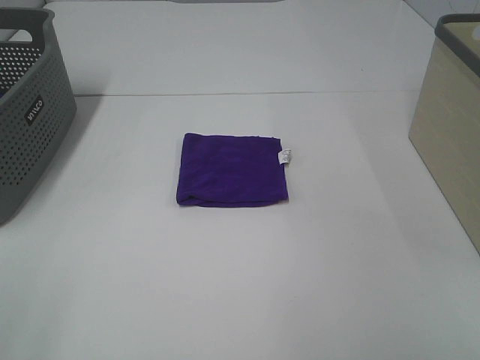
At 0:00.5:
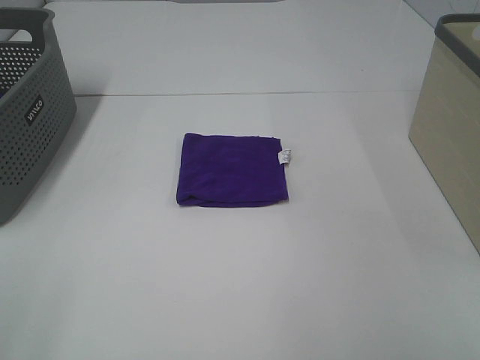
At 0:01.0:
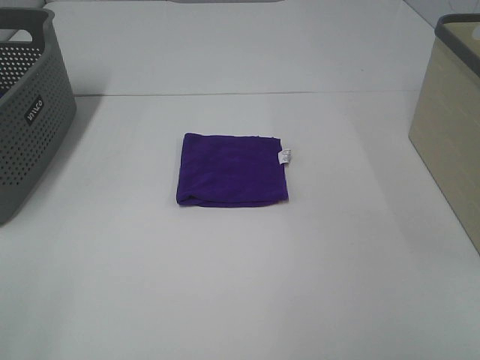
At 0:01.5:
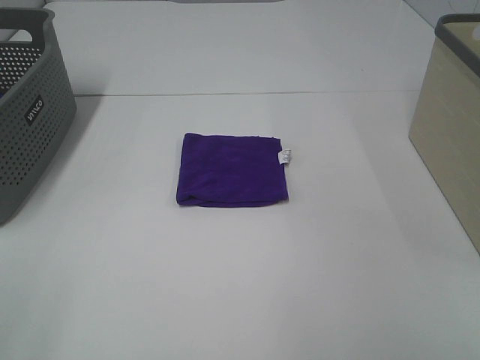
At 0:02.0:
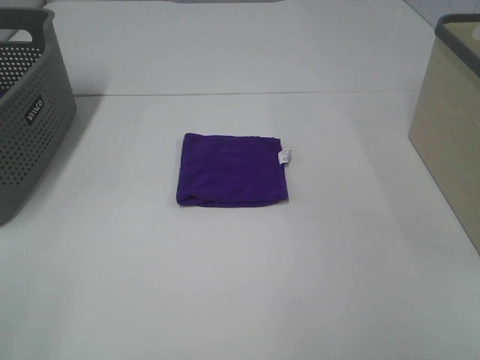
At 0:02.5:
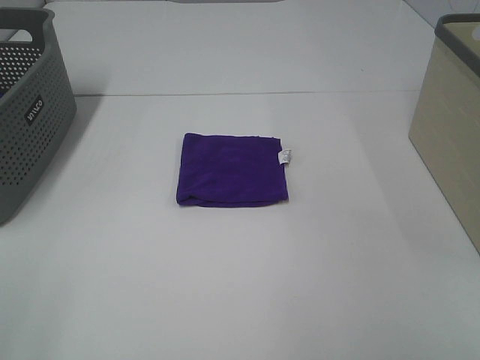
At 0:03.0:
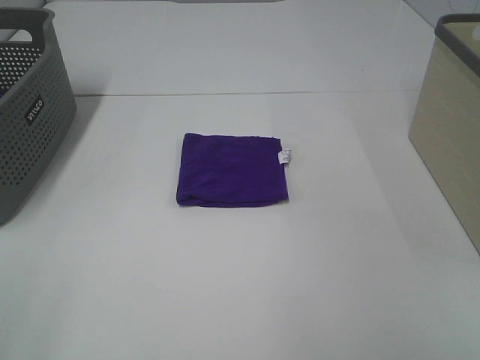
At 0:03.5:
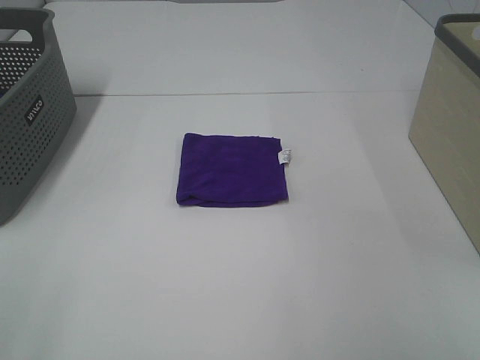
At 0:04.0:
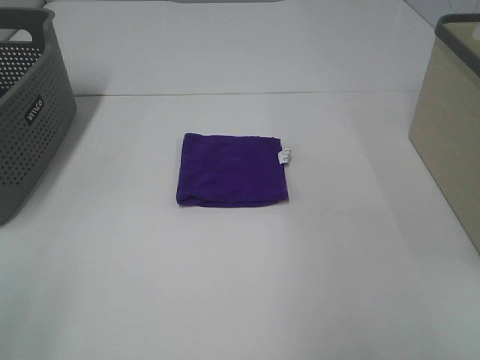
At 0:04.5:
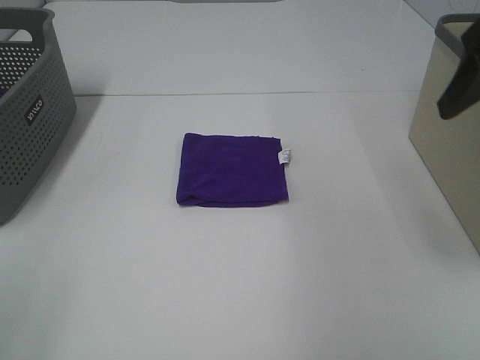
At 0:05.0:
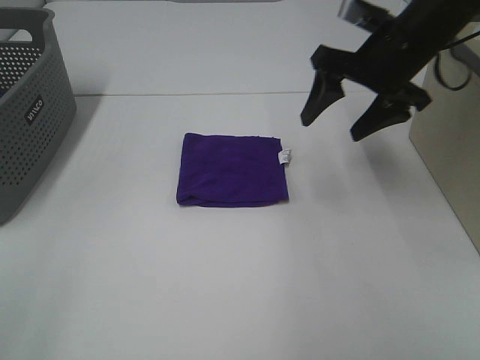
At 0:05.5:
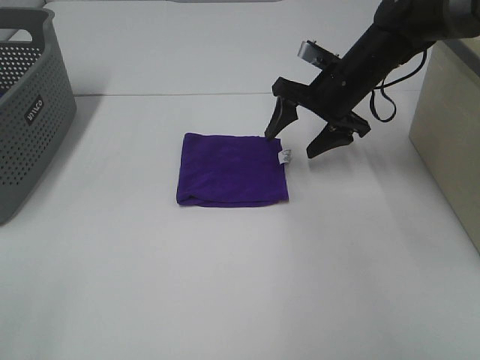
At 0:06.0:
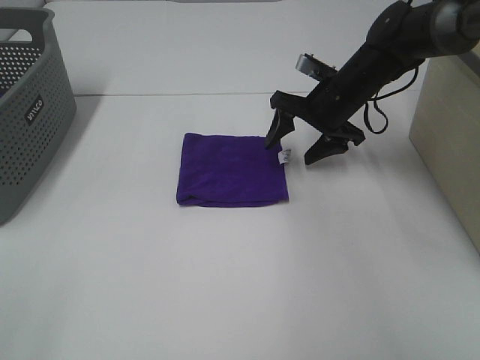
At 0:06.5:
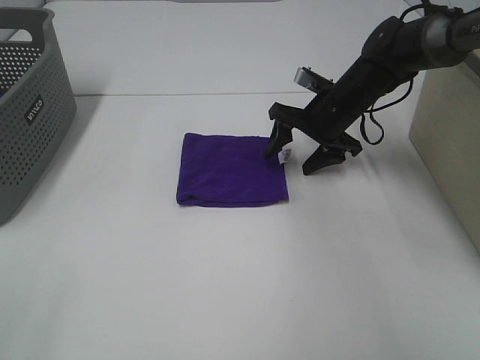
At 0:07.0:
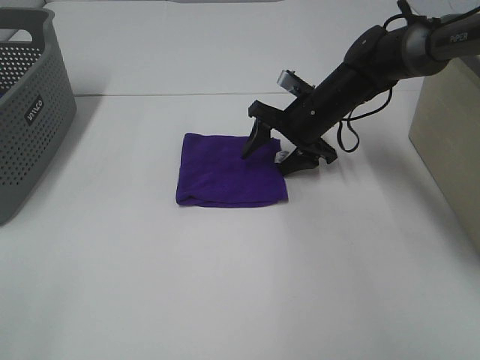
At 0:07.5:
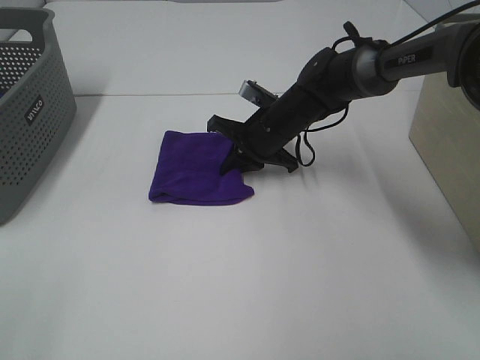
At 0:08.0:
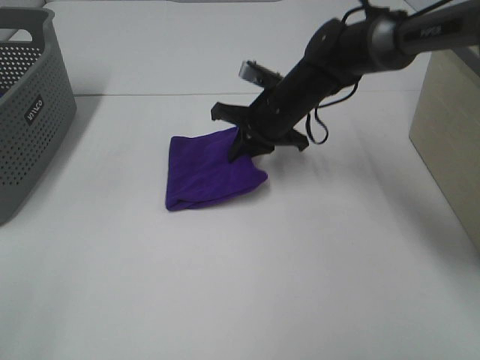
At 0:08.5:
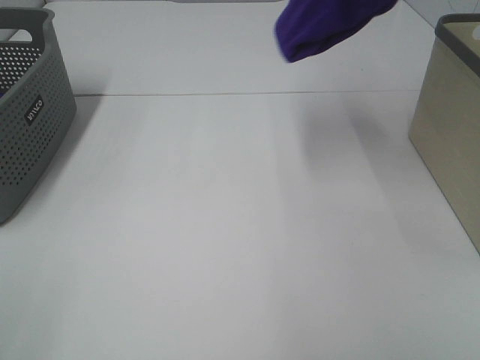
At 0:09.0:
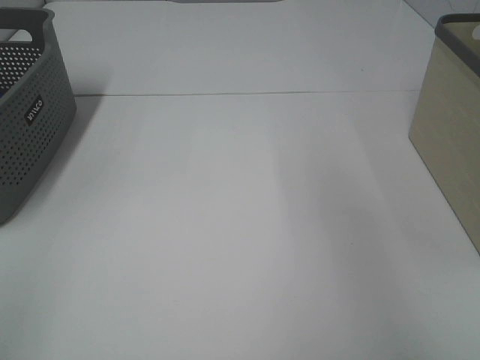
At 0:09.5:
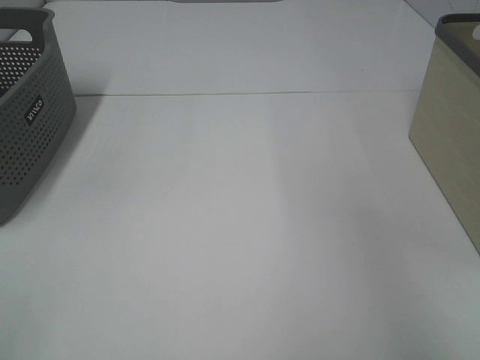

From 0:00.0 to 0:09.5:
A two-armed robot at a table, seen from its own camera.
Step, from 0:00.0 to 0:07.5: Right hand: grab the folded purple towel.
From 0:00.0 to 0:02.0: Both grippers stay put.
From 0:04.0 to 0:05.5: The right gripper shifts about 40 cm forward, downward and to the left.
From 0:05.5 to 0:07.5: The right gripper is displaced to the left and downward by roughly 10 cm, and closes its fingers.
From 0:07.5 to 0:09.5: The right gripper goes roughly 50 cm to the right and upward.

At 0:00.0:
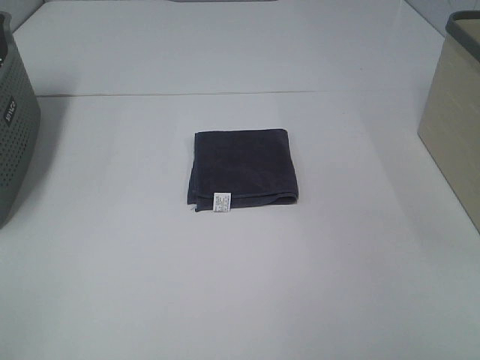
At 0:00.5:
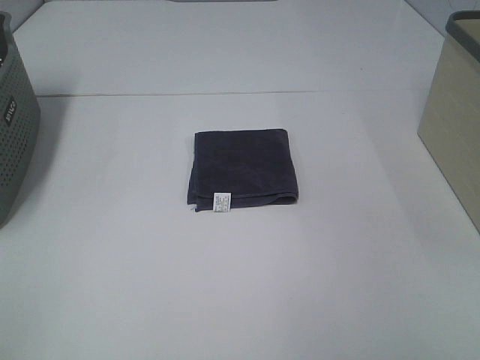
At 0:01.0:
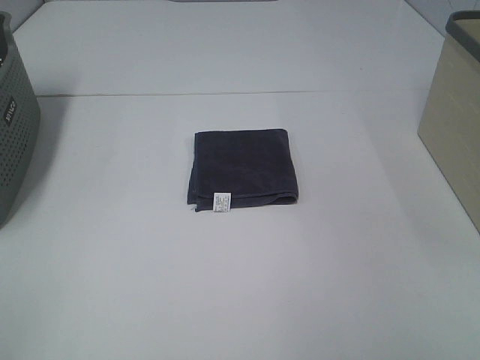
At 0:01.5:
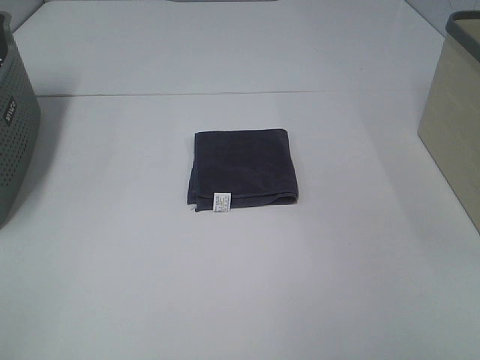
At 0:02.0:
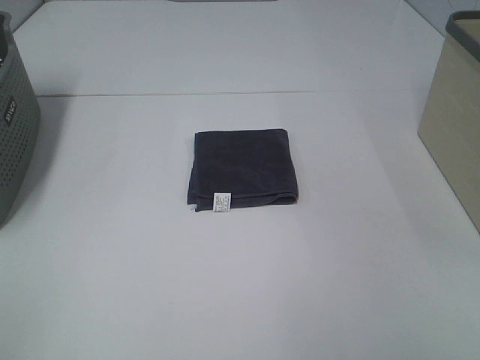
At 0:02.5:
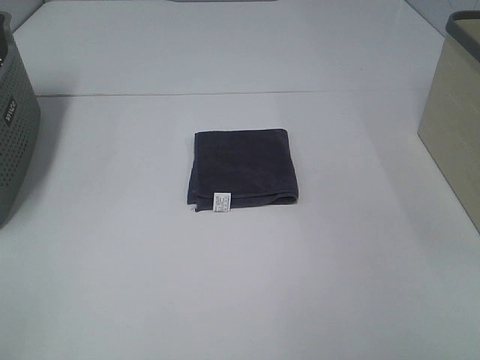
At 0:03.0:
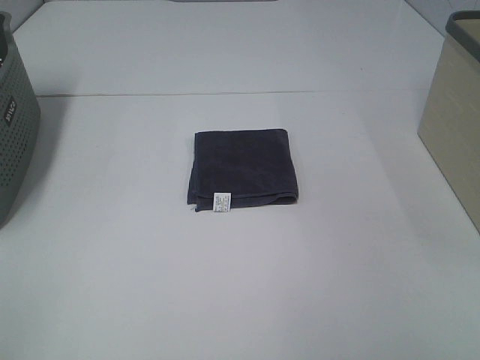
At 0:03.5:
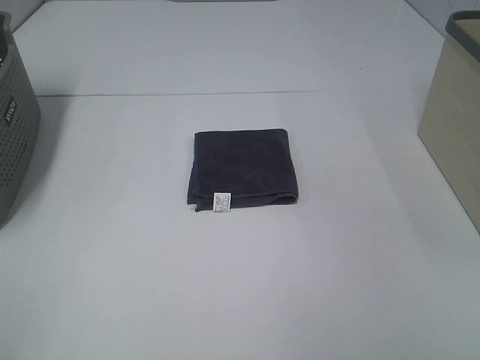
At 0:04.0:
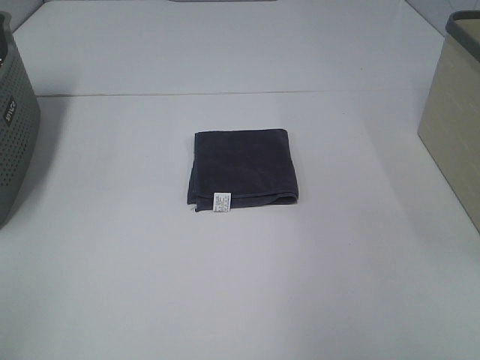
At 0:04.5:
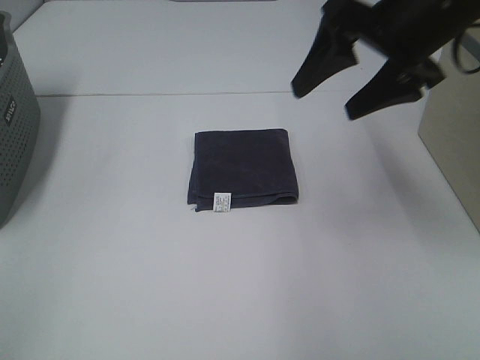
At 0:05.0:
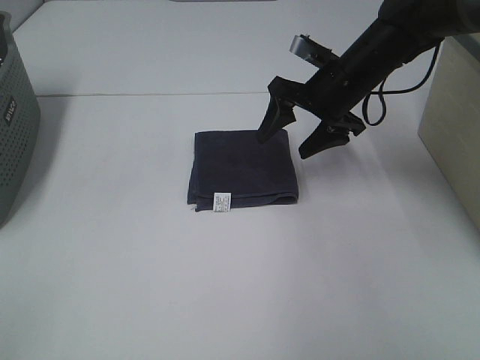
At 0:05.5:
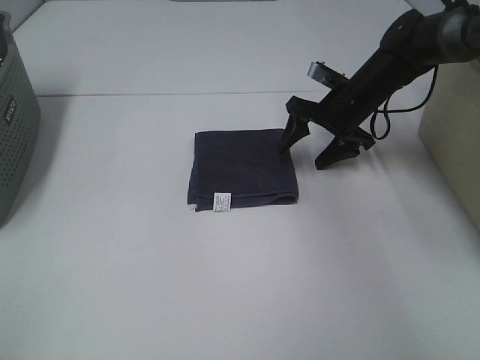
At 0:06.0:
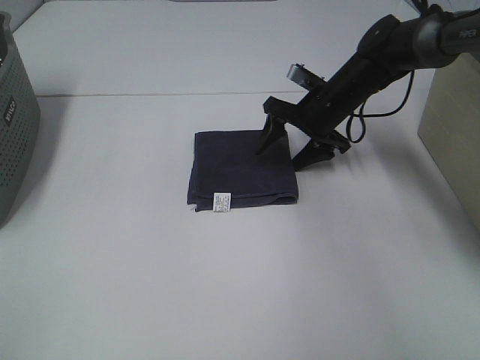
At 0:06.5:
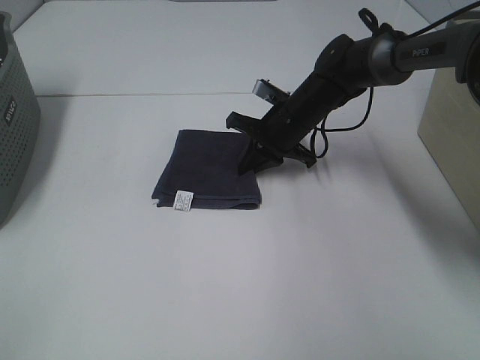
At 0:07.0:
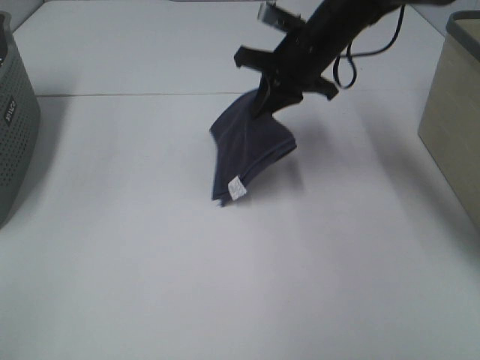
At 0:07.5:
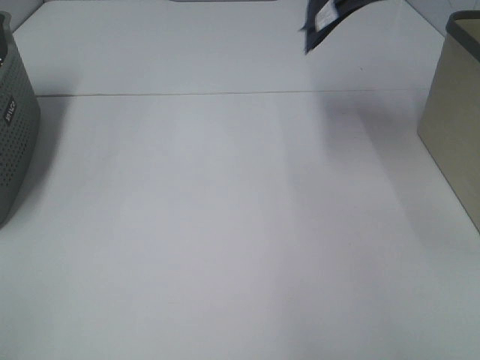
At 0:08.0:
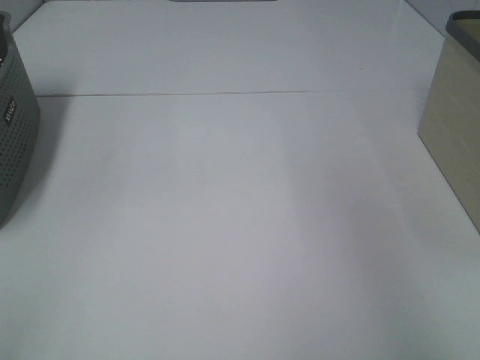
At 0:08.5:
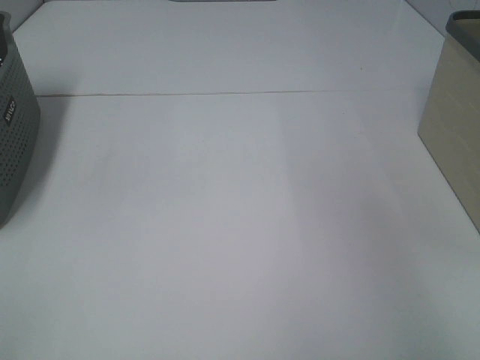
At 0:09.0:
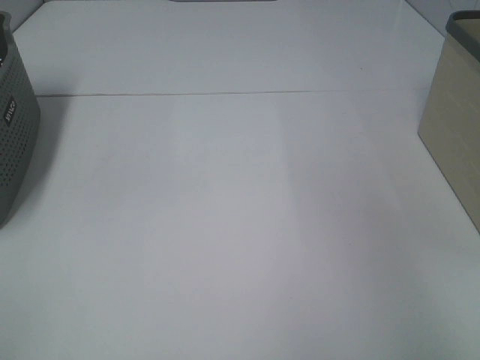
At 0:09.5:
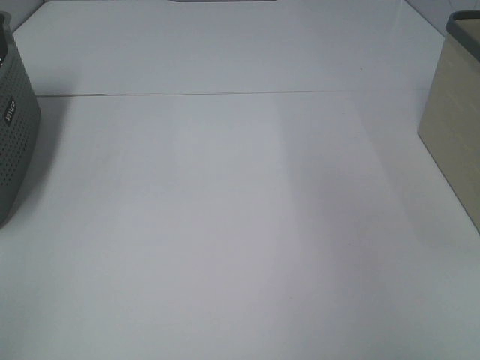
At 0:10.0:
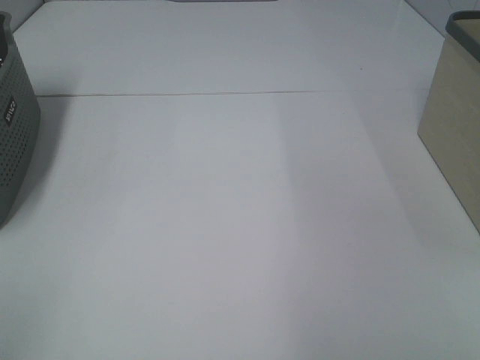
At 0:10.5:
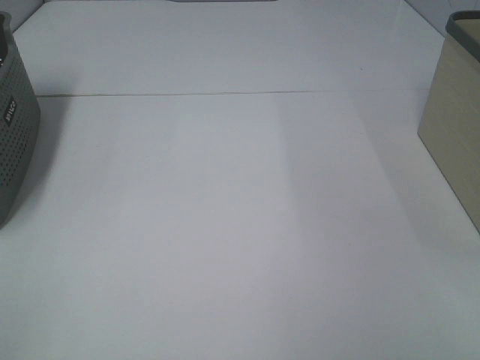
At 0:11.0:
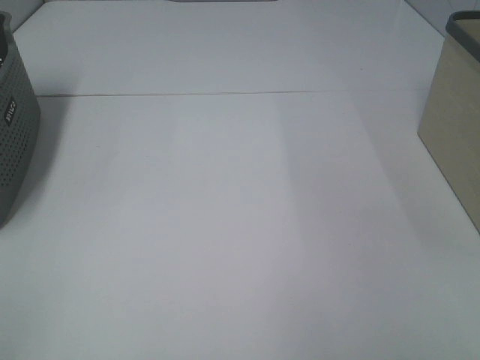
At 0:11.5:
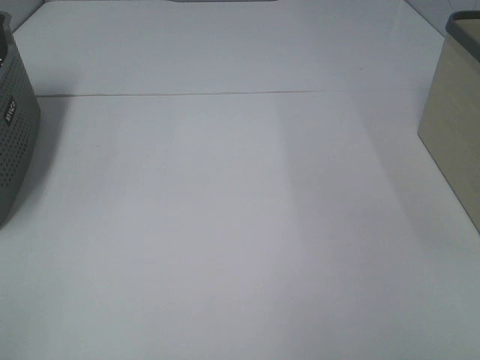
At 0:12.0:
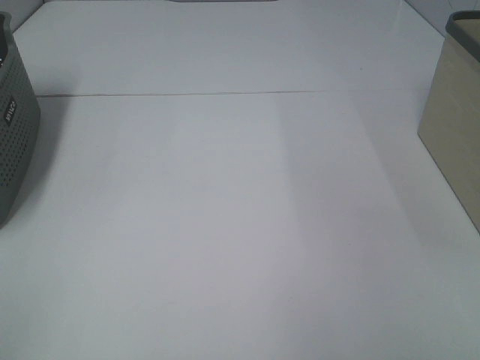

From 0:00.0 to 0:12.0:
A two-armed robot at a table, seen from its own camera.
Step, from 0:00.0 to 0:06.5: Right hand: grab the folded grey towel.
Step, from 0:07.0 to 0:08.5: Right hand: place the grey towel in right basket.
From 0:00.0 to 0:02.0: Neither gripper changes place.
From 0:04.0 to 0:06.0: The right gripper shifts approximately 50 cm forward, downward and to the left.
From 0:06.0 to 0:08.0: The right gripper moves upward and to the right, roughly 40 cm, and closes.

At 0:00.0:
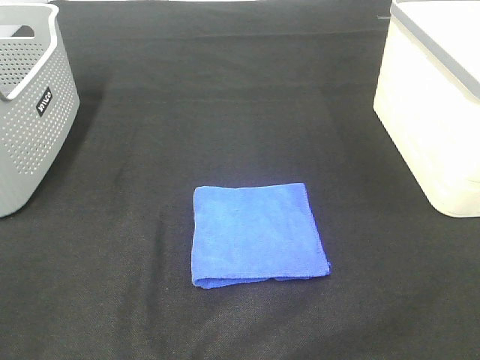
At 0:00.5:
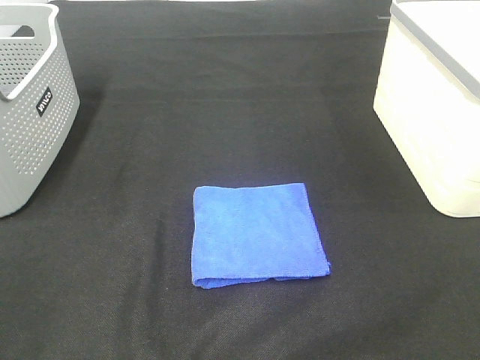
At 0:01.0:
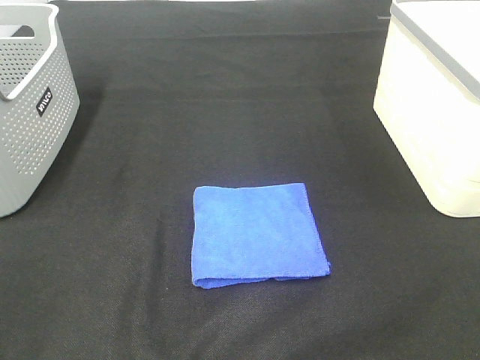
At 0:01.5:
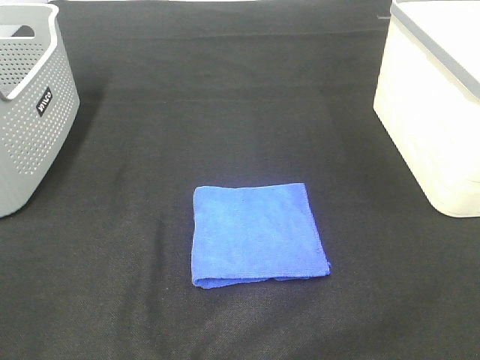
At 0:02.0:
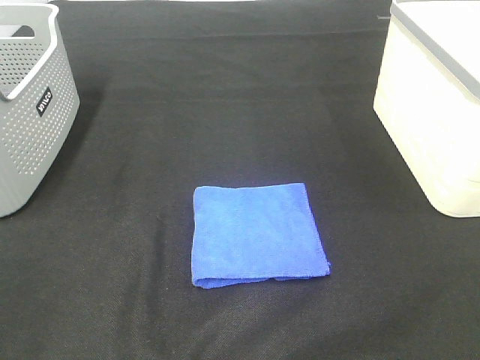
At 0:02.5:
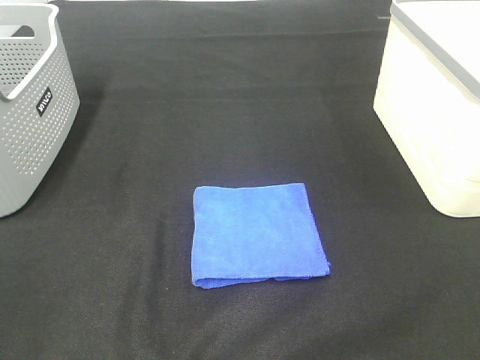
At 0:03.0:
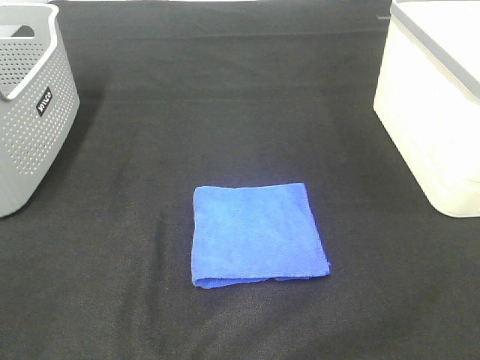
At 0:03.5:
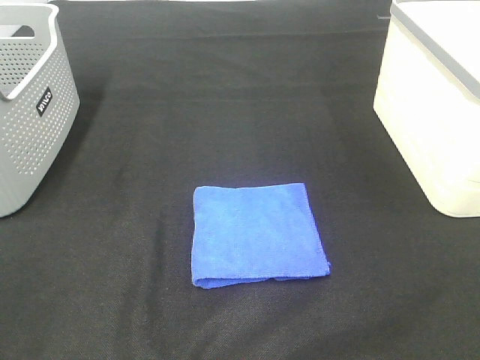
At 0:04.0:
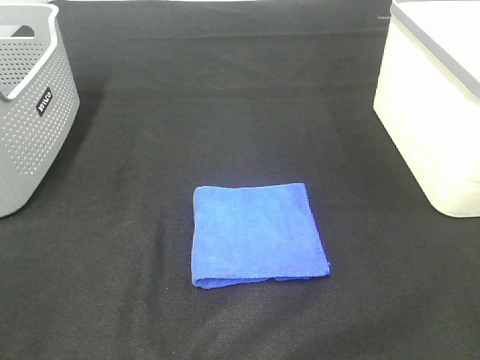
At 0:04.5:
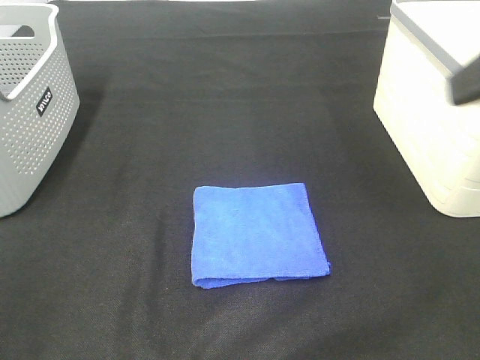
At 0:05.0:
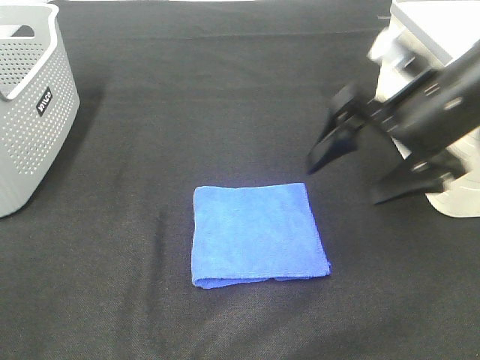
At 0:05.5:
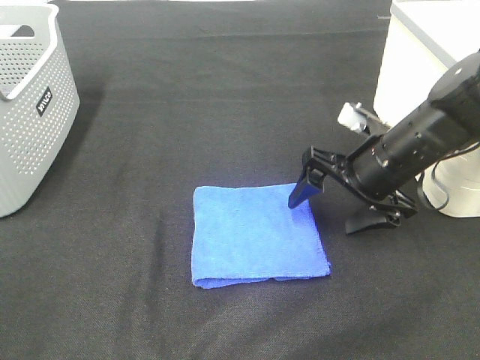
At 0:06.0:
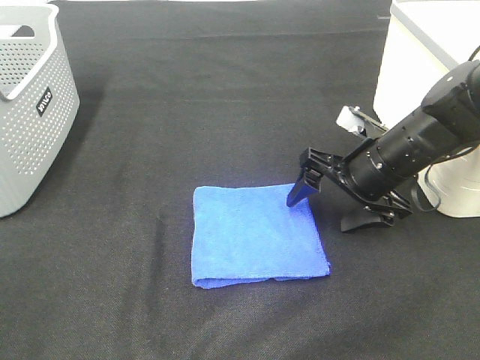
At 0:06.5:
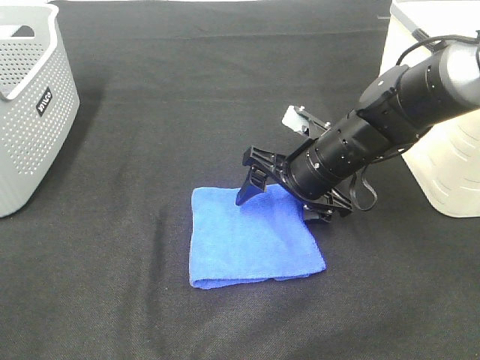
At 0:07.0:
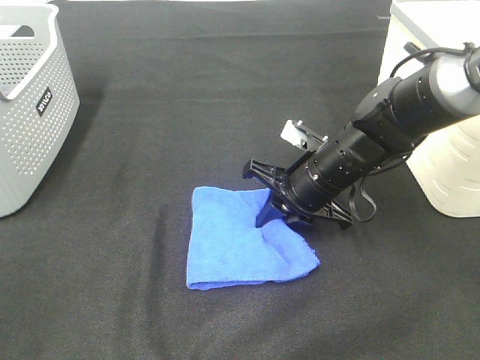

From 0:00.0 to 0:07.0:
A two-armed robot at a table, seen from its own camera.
From 0:00.0 to 0:03.5: Neither gripper changes place.
From 0:03.5 to 0:05.0: The right gripper moves forward, some 30 cm.
From 0:05.0 to 0:07.0: The right gripper is displaced downward and to the left by roughly 15 cm, and closes its fingers.
